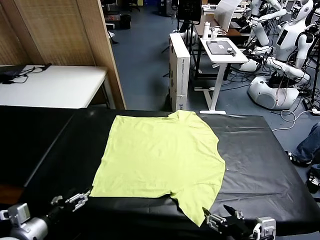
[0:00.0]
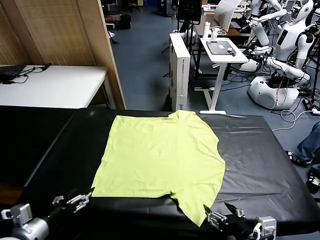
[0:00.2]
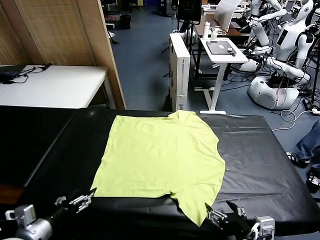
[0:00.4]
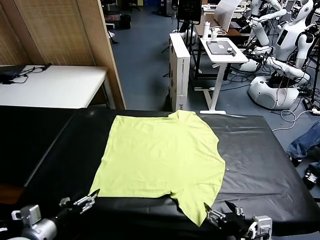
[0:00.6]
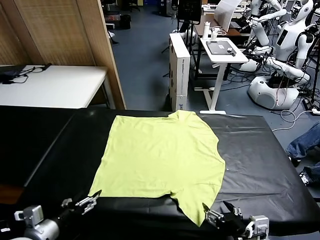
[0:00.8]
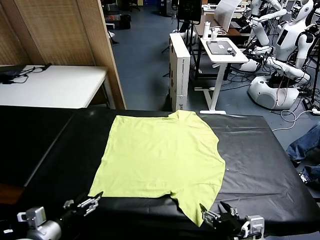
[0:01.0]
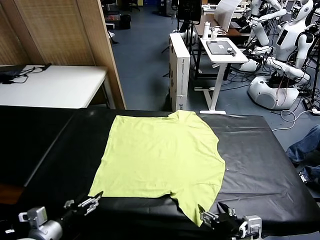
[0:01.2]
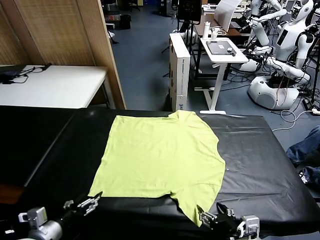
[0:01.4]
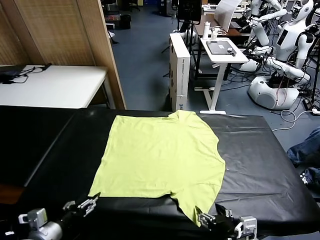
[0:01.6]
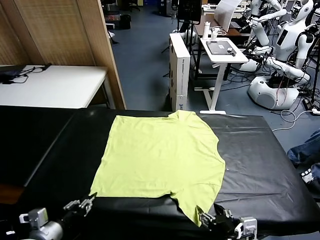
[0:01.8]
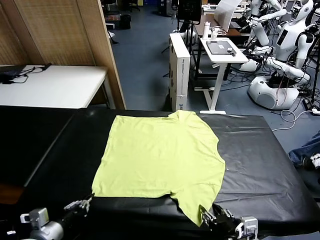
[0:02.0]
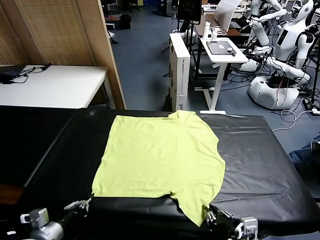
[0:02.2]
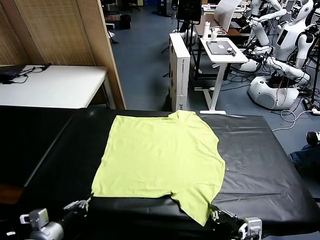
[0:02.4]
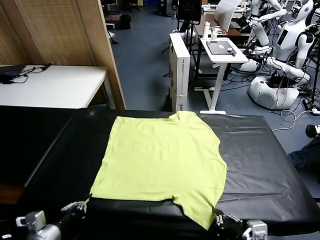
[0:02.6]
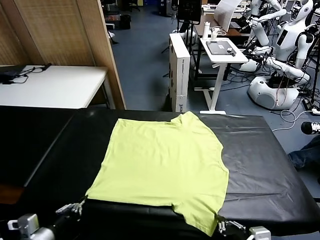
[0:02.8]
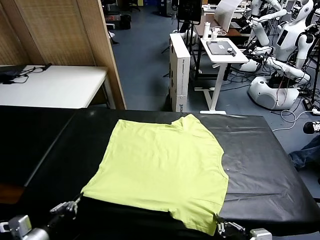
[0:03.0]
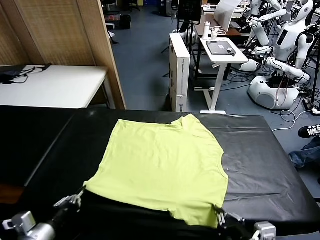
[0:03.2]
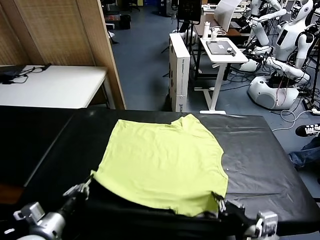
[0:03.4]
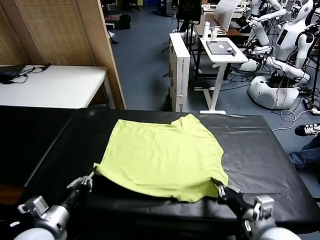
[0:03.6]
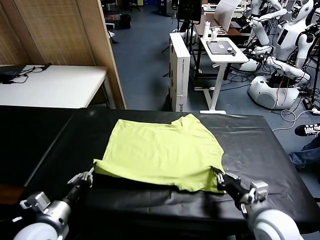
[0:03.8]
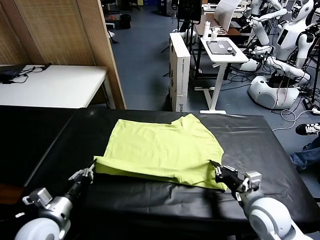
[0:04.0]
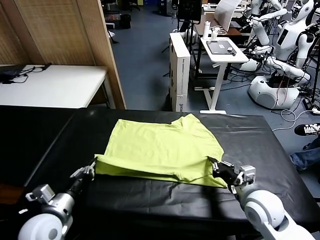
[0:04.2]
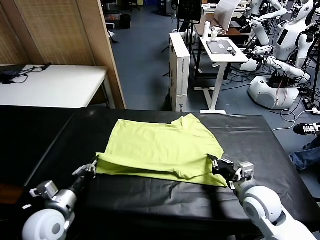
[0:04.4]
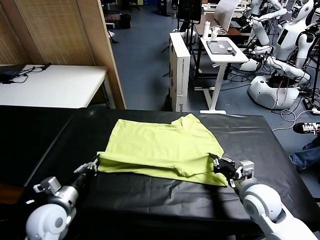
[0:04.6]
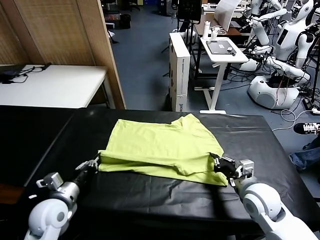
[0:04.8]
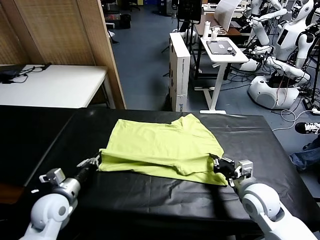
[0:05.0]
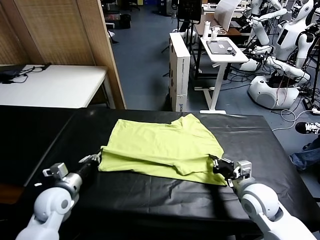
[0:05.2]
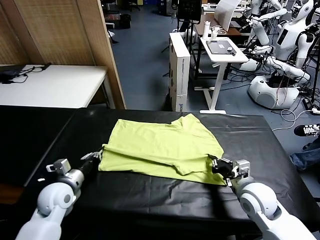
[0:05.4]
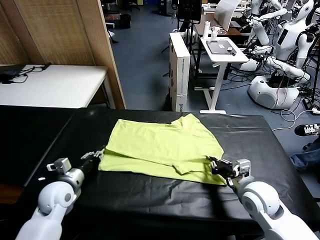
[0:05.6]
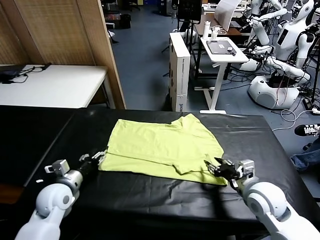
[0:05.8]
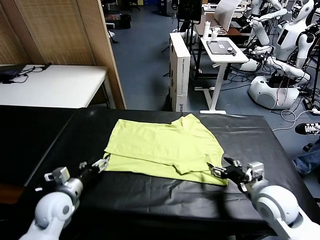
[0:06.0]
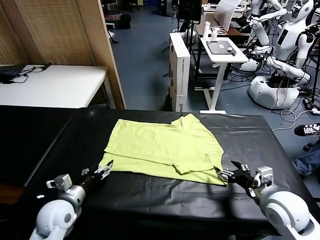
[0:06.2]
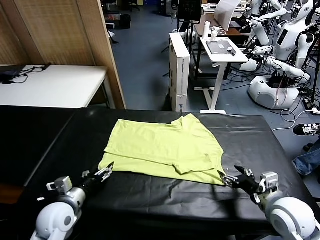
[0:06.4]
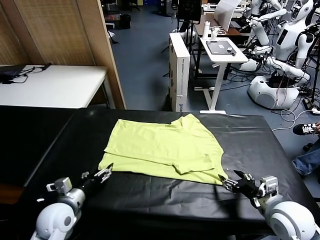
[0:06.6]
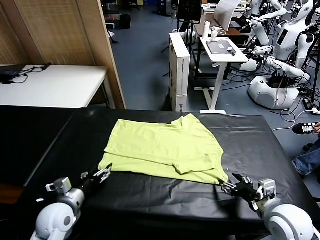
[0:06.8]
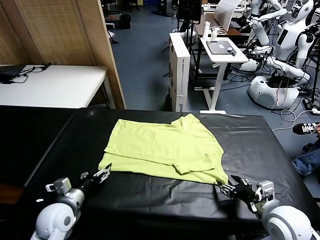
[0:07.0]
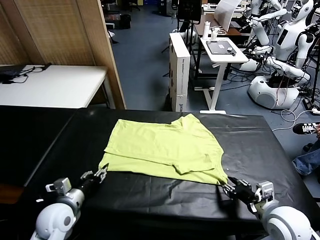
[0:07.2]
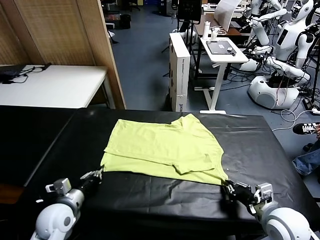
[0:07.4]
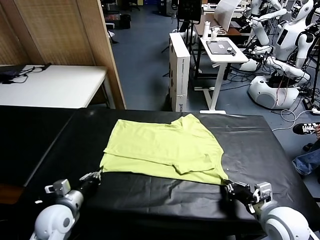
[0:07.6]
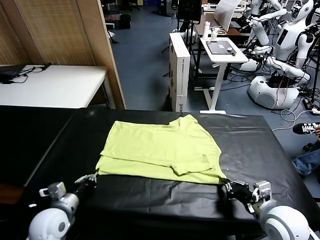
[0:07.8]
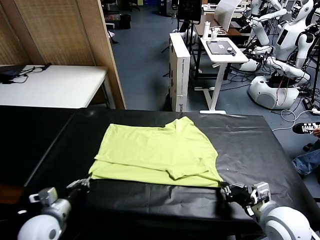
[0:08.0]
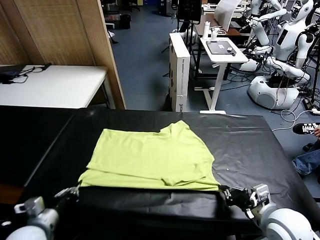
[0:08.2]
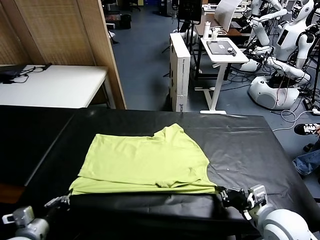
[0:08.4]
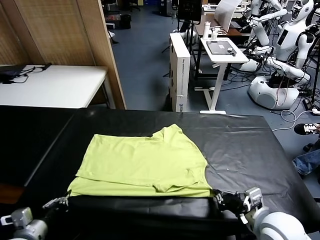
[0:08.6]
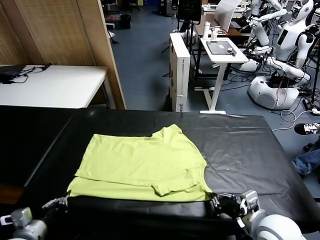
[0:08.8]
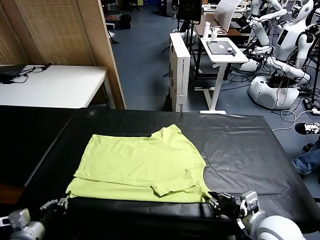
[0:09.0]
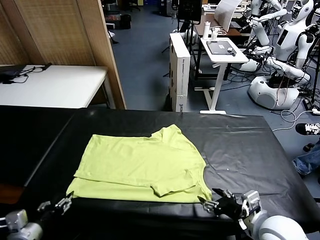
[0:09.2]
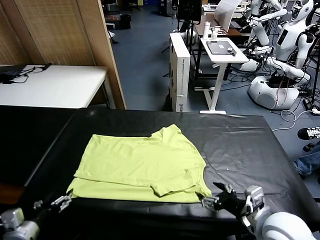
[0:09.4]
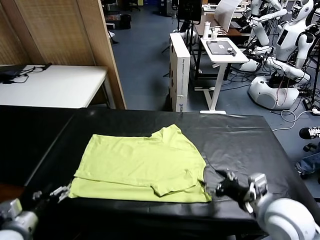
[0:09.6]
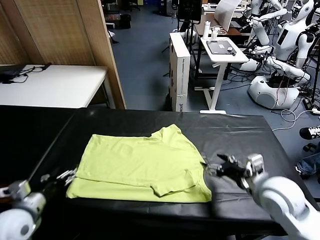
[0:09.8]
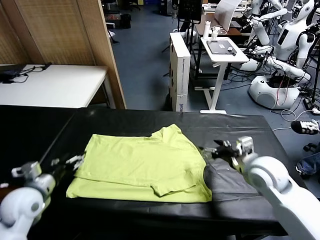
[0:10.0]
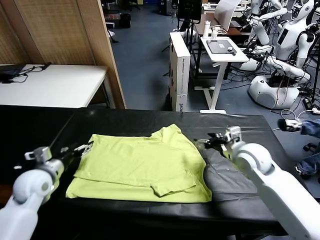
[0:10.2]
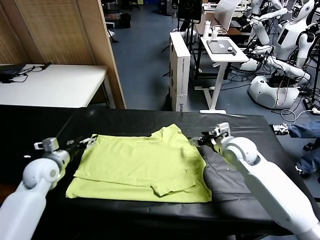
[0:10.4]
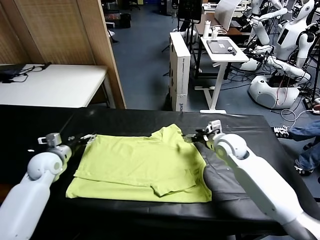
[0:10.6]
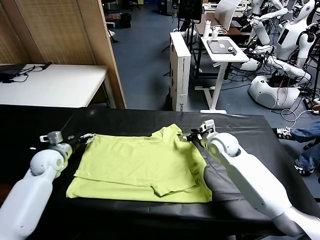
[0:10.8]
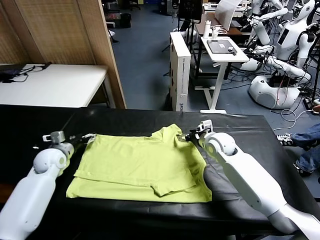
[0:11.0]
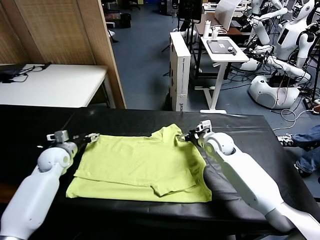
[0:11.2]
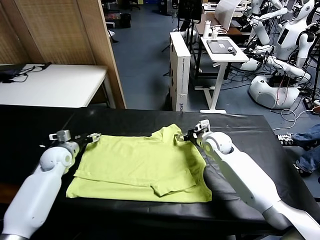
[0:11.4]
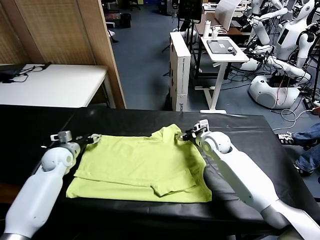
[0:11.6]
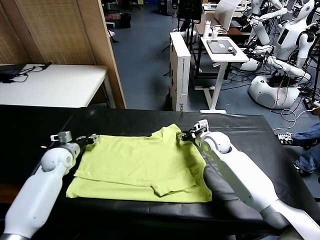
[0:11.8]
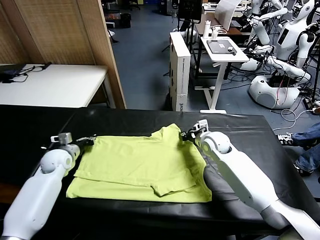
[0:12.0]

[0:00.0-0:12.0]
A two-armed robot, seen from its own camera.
Task of the whole recording: fold and organize the clothes.
Step, 0.0 to 2.6 s: use both grippers simultaneously to clamp the lower edge of the clothing fabric.
Step, 2.8 to 5.8 s: use both grippers to drag the lower edge of the fabric forward and fold it over the upper edge.
Step, 6.0 to 9.2 s: Drag the clothes downward with both gripper.
1.6 to 3.0 s: The right gripper ends up approximately 5 cm from where it was, and closes; the left gripper closes its fingers.
3.0 to 4.4 s: The left gripper shifts approximately 10 cm forward; the right gripper heads forward, covering roughly 20 cm.
4.4 to 6.0 s: The right gripper moves roughly 5 cm, and opens its fingers. The left gripper opens up.
6.0 to 7.6 s: The left gripper closes up; the right gripper closes its fingers.
7.6 to 9.0 s: The left gripper goes about 10 cm backward and to the left, and opens up. The right gripper ends up approximately 5 cm from where it was, and opens up.
9.0 to 10.4 s: Both grippers move forward, approximately 25 cm. The left gripper opens up.
10.4 to 12.0 s: The right gripper shifts by some 5 cm, and closes up, while the left gripper is displaced forward by approximately 5 cm, and closes up.

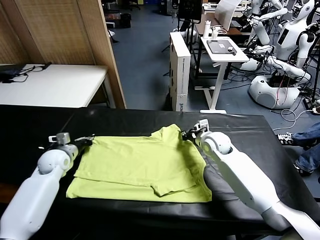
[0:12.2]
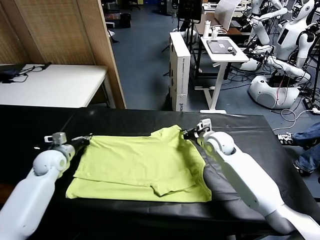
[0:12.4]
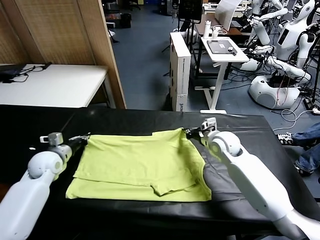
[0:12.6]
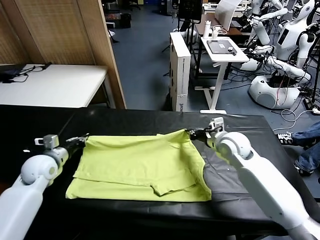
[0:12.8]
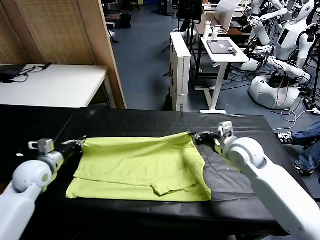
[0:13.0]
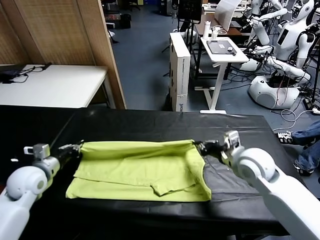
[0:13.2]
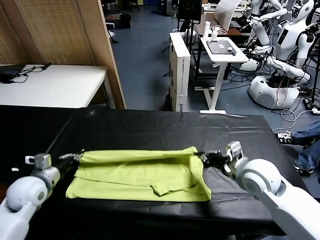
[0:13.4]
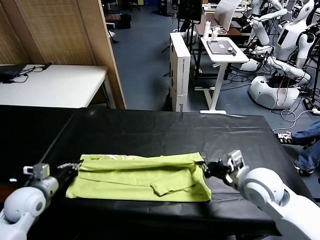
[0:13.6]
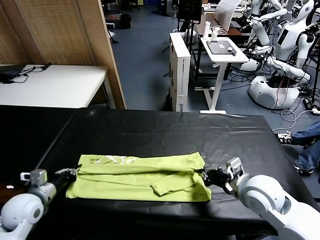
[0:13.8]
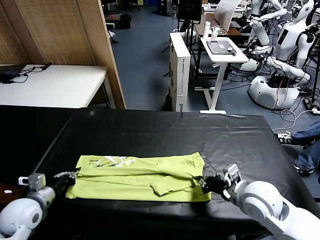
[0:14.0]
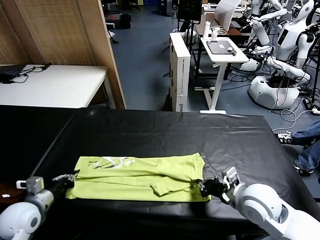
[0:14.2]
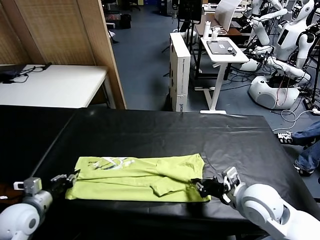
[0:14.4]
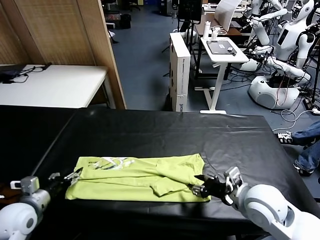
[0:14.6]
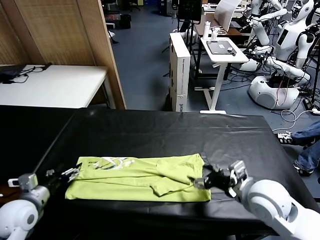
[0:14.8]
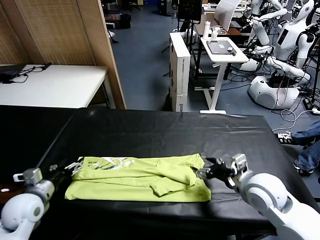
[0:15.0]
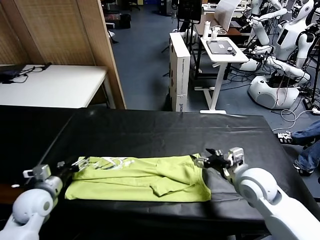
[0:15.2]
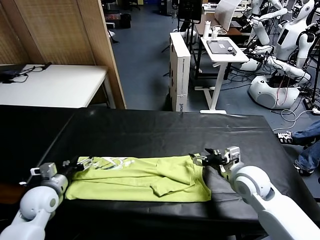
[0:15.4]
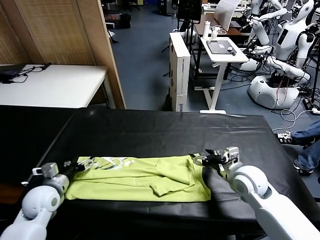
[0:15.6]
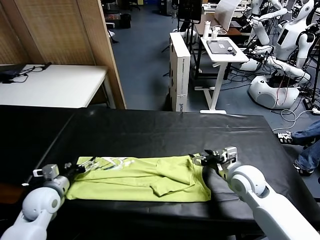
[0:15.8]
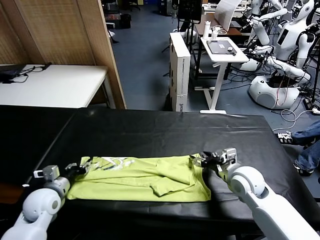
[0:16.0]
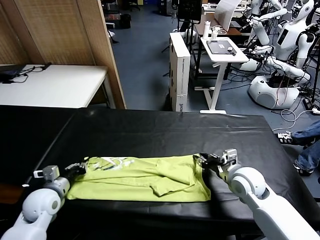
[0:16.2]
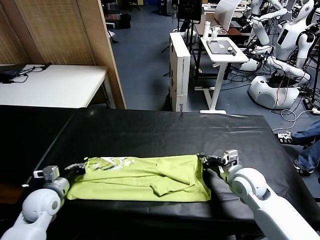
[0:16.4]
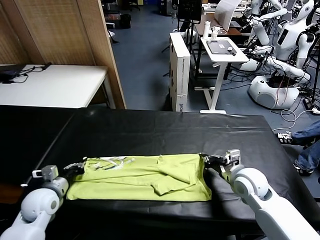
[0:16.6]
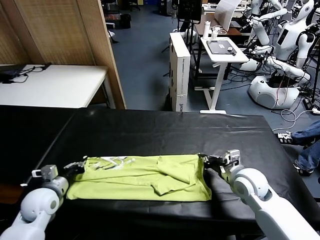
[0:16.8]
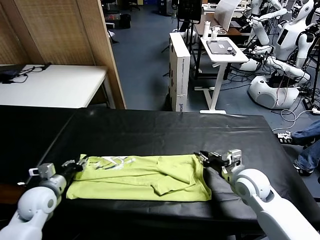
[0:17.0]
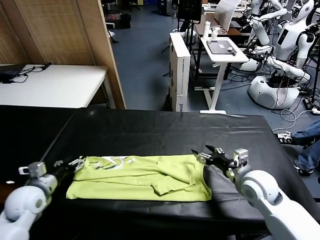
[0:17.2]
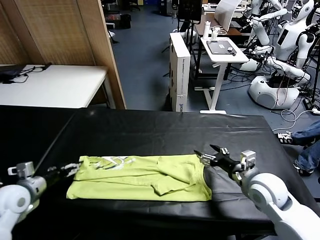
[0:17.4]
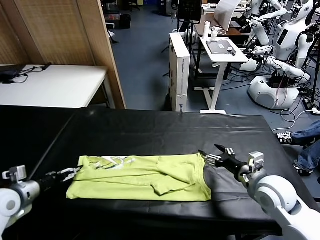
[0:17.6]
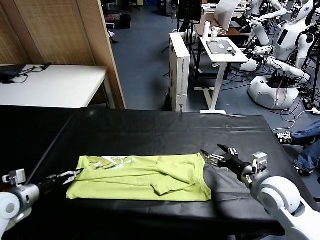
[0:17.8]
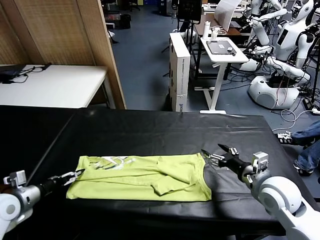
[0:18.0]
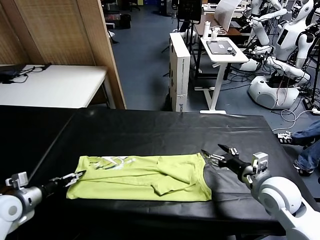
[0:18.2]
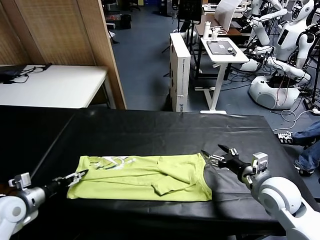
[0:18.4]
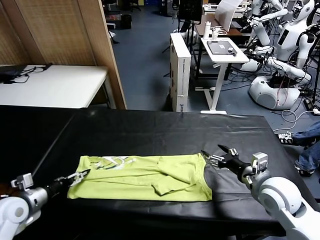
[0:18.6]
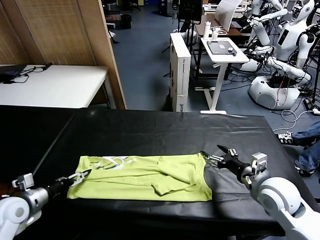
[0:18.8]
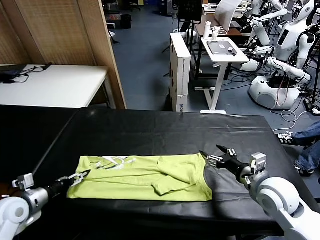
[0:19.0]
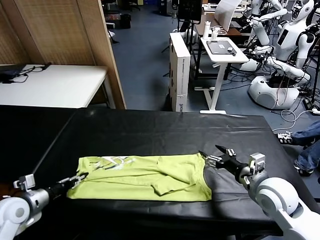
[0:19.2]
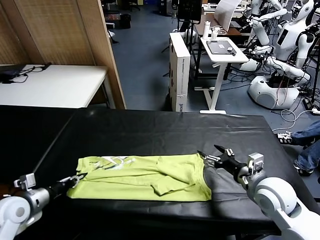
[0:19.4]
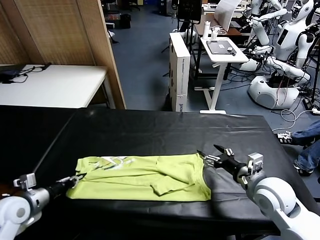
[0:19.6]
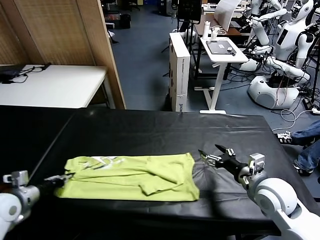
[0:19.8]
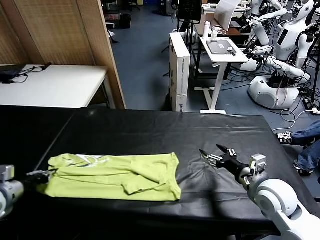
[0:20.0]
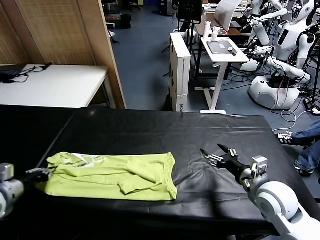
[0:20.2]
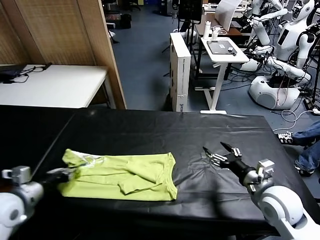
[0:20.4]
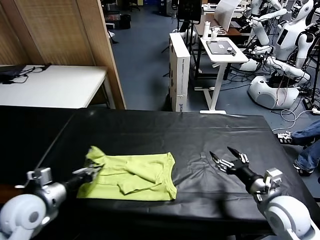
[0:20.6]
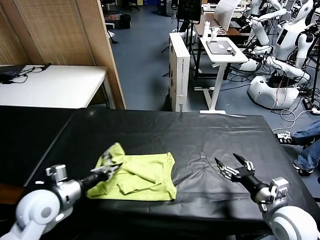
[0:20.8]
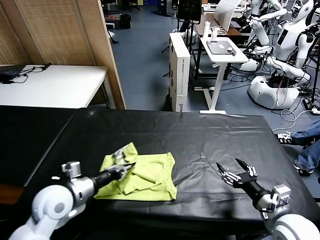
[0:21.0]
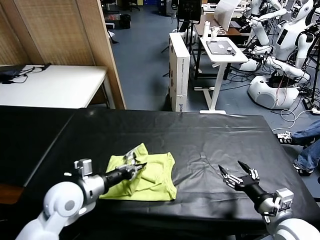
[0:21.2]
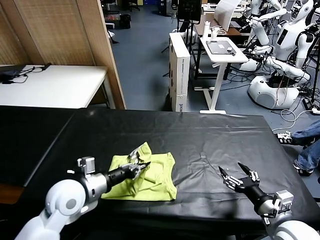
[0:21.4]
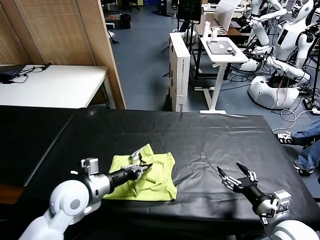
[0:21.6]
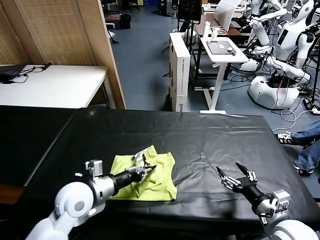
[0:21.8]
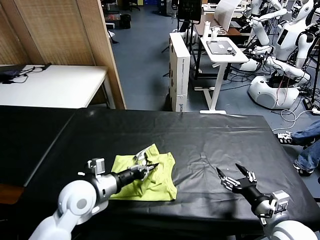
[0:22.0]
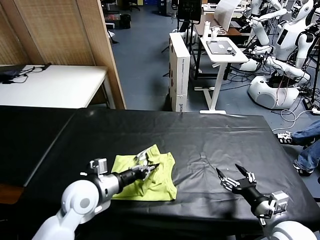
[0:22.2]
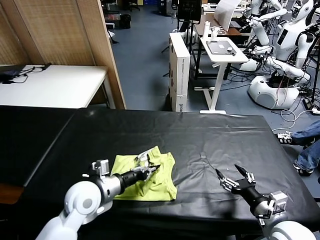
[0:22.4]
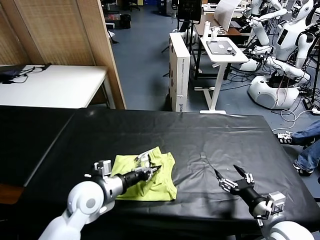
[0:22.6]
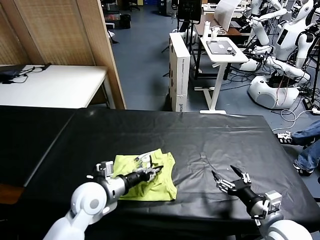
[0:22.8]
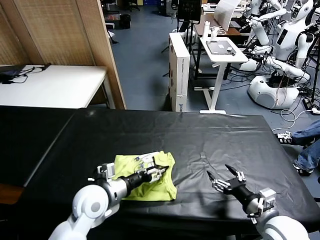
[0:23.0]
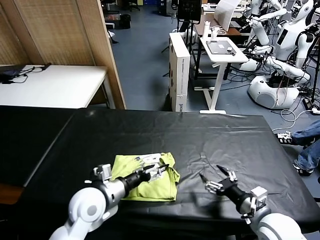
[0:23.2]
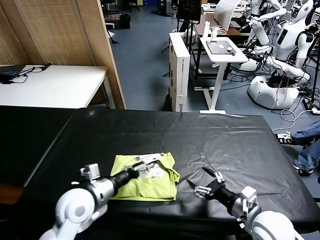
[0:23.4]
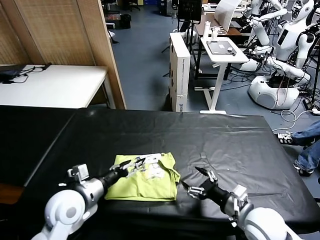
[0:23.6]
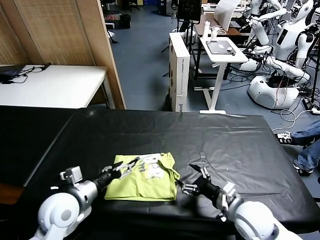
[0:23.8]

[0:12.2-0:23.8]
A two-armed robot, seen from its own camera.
Task of the whole recording: fold and organize the clothes.
Step, 12.4 to 14.6 s: use both grippers to drag the upper edge of the fabric backward and fold it over the lower edge.
Step, 14.8 to 19.6 s: use the left gripper to clamp the left edge of the fabric.
Step, 19.8 to 23.2 s: use the left gripper to drag the left edge of the fabric to the left and folds it over the right edge.
12.2 to 13.6 s: Both grippers move backward, approximately 20 cm.
13.6 to 15.0 s: The left gripper opens its fingers. The right gripper opens its fingers.
15.0 to 16.6 s: The right gripper shifts by roughly 5 cm, and closes its fingers; the left gripper closes.
16.6 to 18.0 s: The right gripper moves backward and upward, about 5 cm, and opens up. Meanwhile the left gripper heads to the left, covering roughly 10 cm, and opens up.
18.0 to 19.4 s: The left gripper closes.
19.4 to 21.0 s: The right gripper goes about 10 cm backward, while the left gripper goes roughly 15 cm to the right.
21.0 to 22.4 s: The left gripper travels to the right by roughly 5 cm.
22.4 to 23.8 s: The left gripper travels to the left by some 5 cm, and opens its fingers. The right gripper travels to the left and forward by approximately 10 cm.
